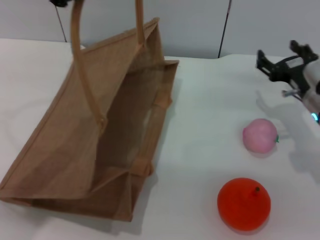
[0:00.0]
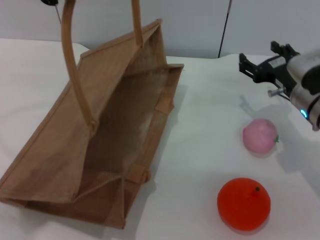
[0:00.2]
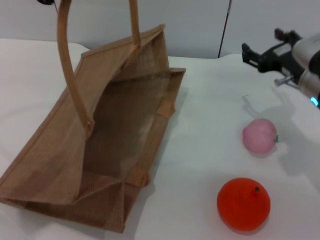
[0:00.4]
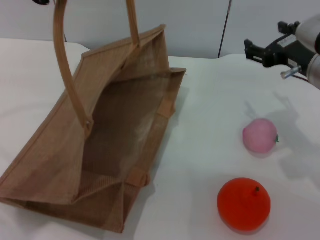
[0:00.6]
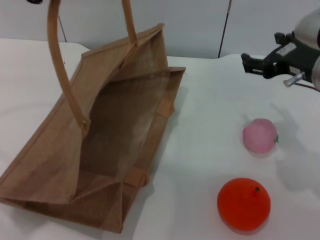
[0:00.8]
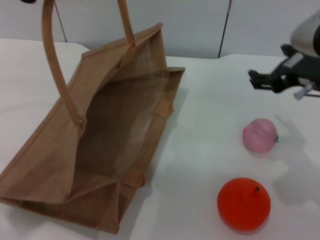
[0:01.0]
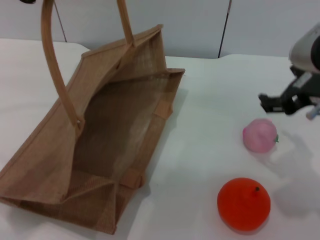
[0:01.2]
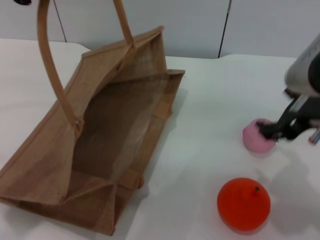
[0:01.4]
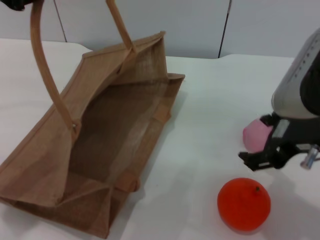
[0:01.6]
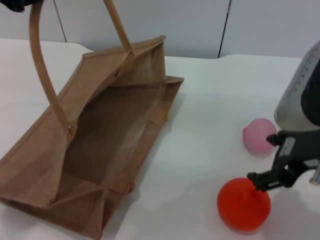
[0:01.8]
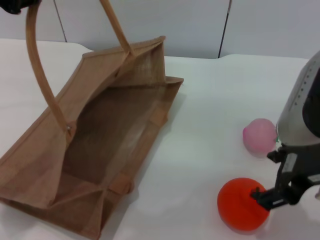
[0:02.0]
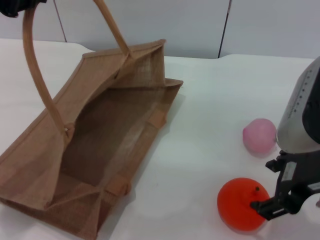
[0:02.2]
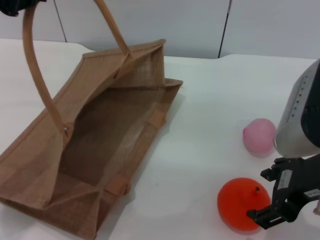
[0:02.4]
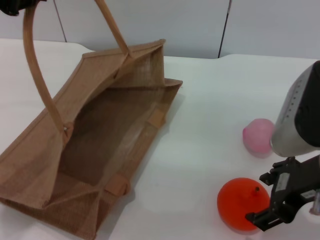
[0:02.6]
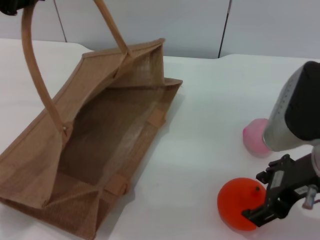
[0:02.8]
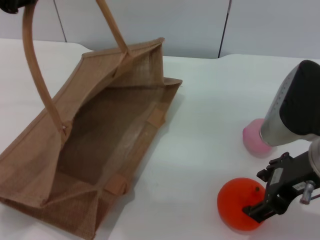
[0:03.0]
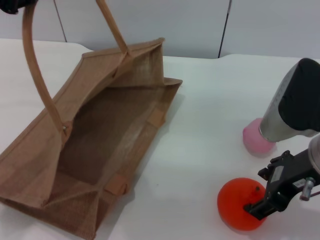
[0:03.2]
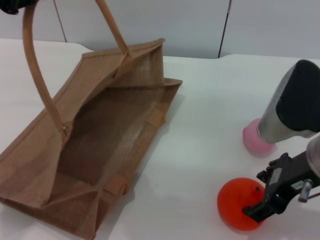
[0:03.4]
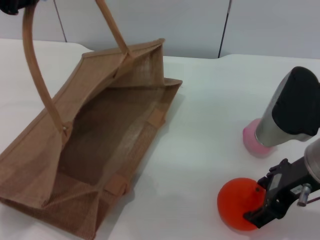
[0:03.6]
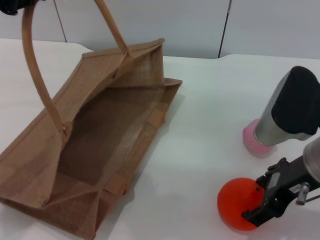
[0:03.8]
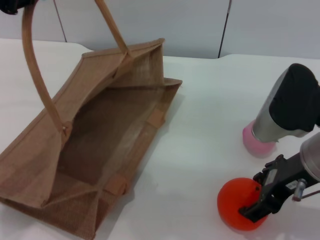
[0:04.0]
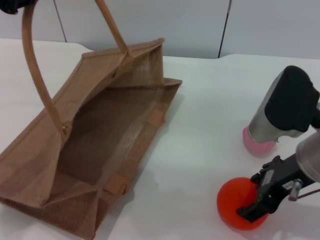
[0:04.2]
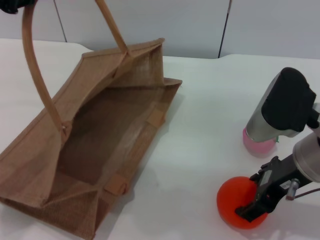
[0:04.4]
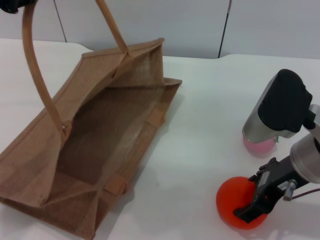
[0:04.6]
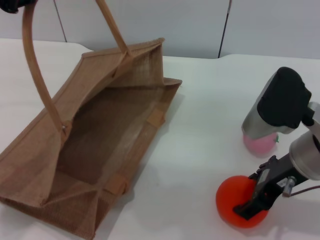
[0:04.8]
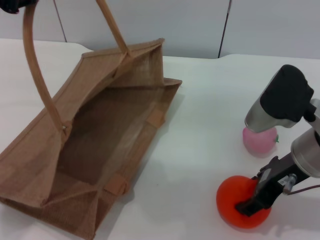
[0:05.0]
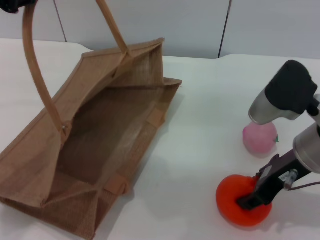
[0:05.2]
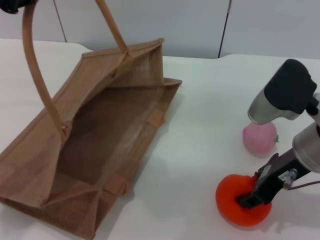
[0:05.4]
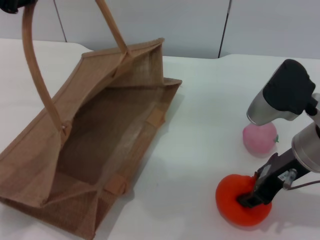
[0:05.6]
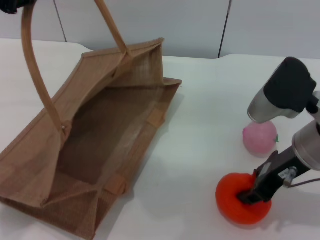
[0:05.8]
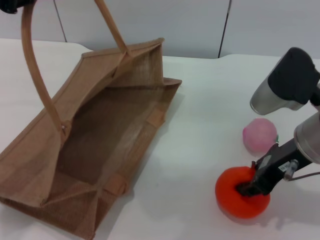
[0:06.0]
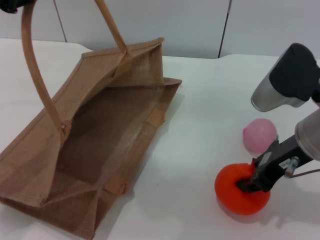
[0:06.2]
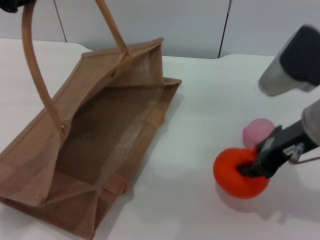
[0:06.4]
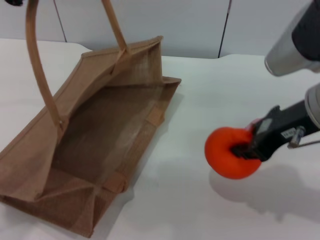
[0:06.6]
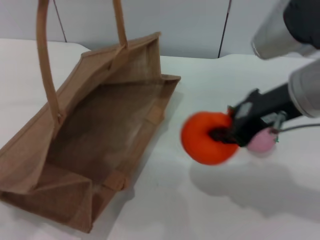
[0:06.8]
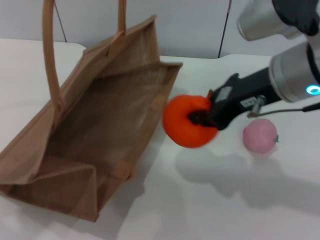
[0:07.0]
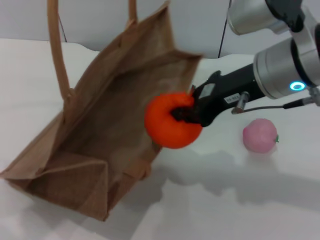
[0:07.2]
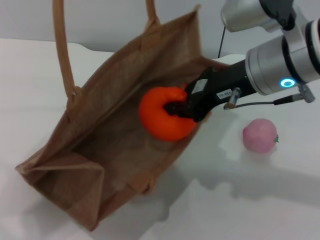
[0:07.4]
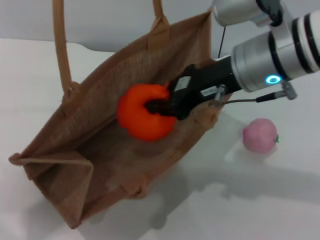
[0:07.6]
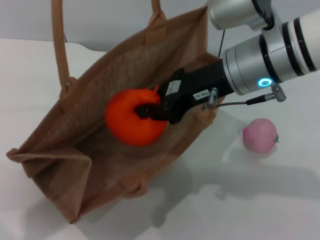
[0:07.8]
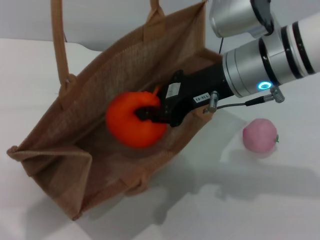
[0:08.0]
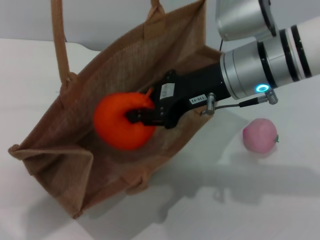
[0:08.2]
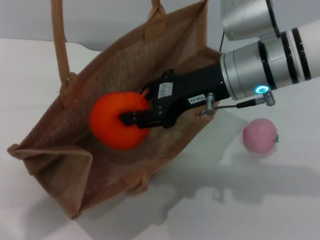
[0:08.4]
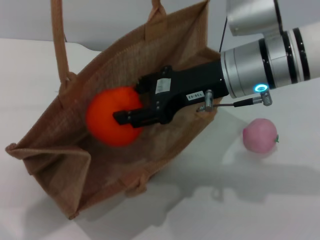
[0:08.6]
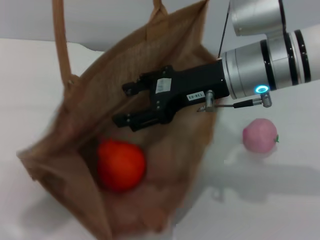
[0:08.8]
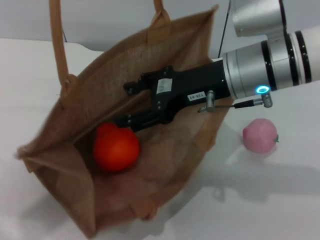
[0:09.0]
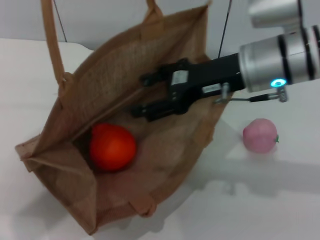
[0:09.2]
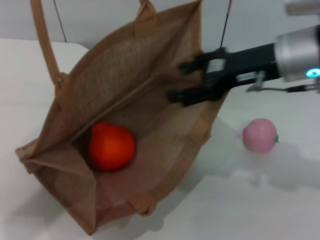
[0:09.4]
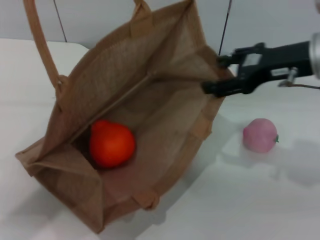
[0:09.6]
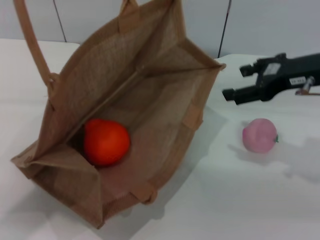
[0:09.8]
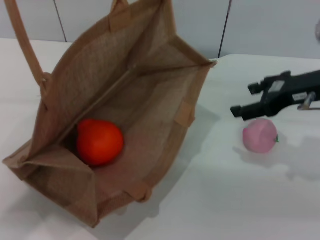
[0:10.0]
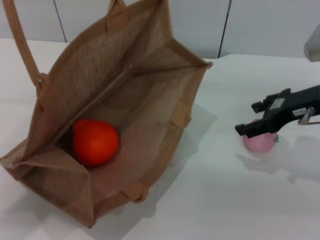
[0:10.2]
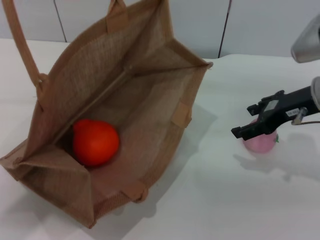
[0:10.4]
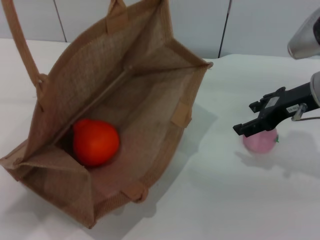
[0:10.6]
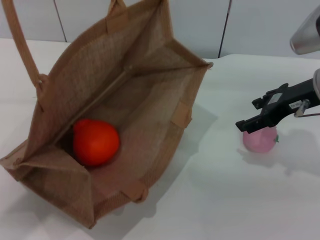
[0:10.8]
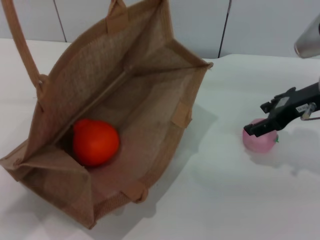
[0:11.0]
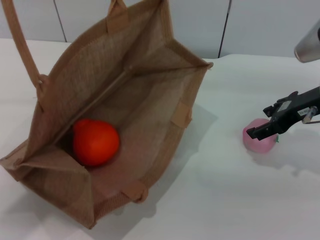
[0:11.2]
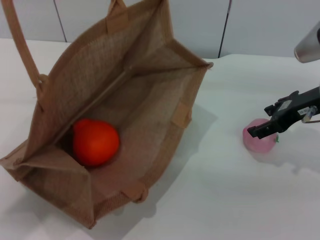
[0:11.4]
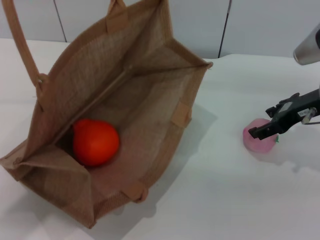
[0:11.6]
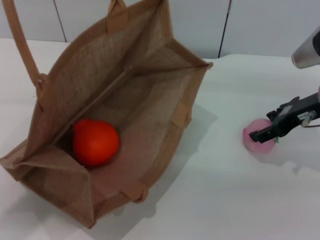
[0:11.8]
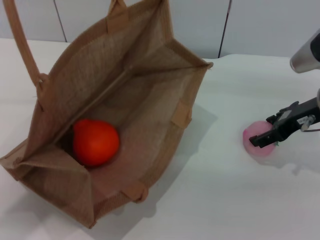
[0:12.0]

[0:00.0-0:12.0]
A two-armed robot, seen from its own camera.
Task of the whole recording: pick up the orange and peach from the table and place it in the brown handbag.
Step, 0:00.2 to 0:06.6: Pick up the orange with the right gripper.
Step, 0:06.8 to 0:09.2: Place the orange into the woven bag with the right gripper.
0:00.0 to 0:01.6: The right gripper shifts about 20 cm upward and backward.
0:03.0 to 0:04.4: The grippers move only a little.
0:04.4 to 0:06.0: The right gripper closes up.
0:06.0 to 0:07.6: The right gripper goes some 10 cm to the left and upward, and closes up, while the left gripper moves roughly 5 cm.
0:07.6 to 0:09.0: The right gripper opens.
0:09.0 to 0:10.4: The left gripper shifts by approximately 5 cm; the right gripper heads to the right, covering some 10 cm.
0:10.4 to 0:12.0: The grippers move only a little.

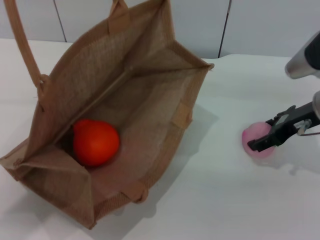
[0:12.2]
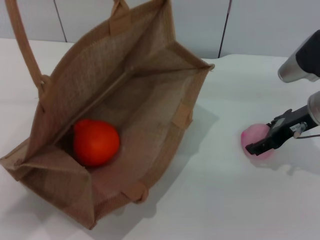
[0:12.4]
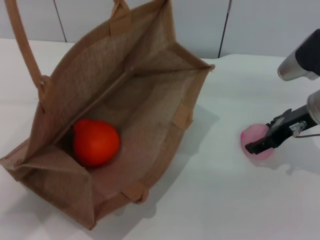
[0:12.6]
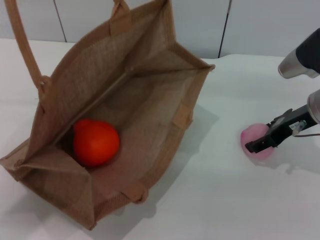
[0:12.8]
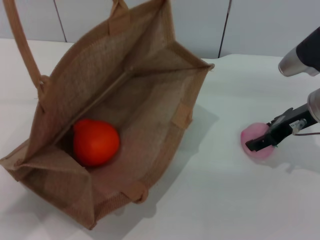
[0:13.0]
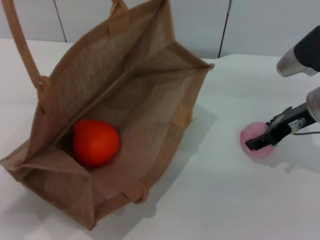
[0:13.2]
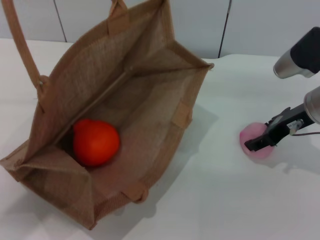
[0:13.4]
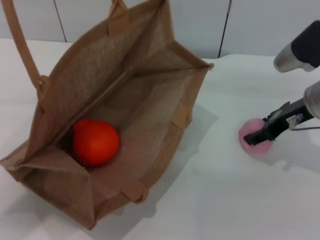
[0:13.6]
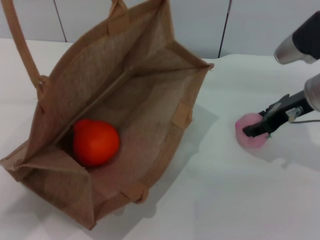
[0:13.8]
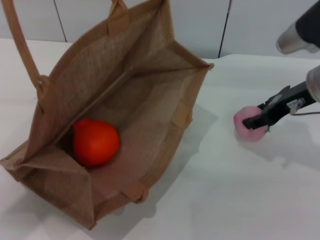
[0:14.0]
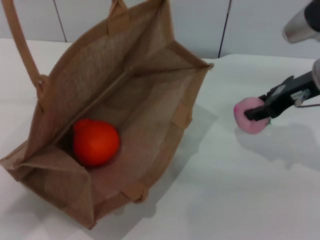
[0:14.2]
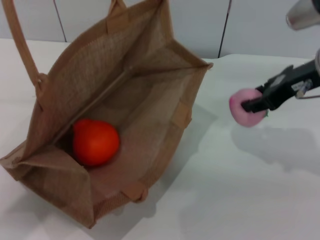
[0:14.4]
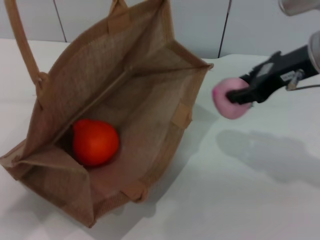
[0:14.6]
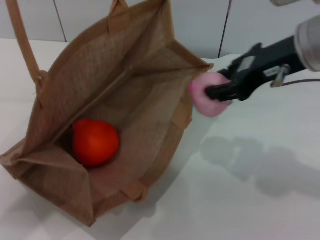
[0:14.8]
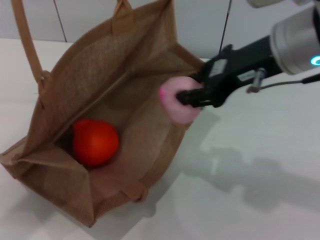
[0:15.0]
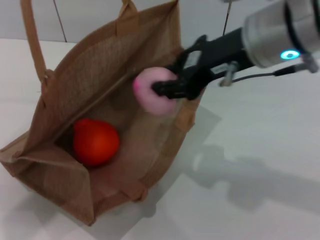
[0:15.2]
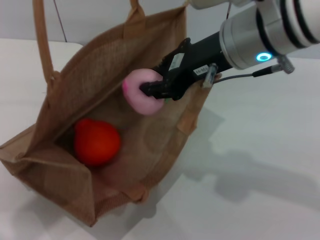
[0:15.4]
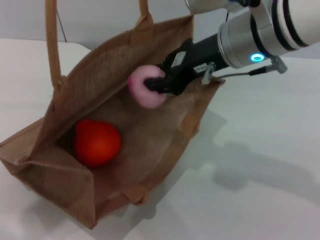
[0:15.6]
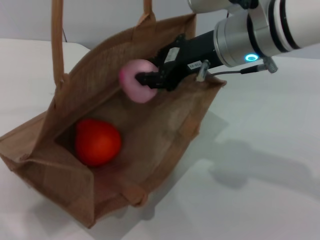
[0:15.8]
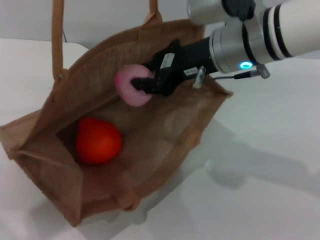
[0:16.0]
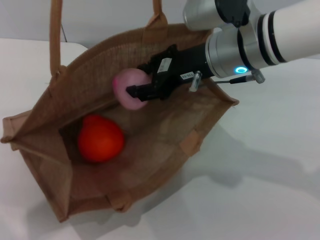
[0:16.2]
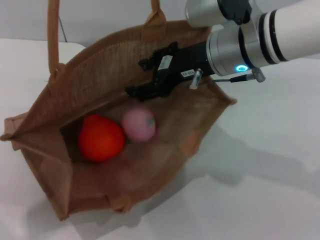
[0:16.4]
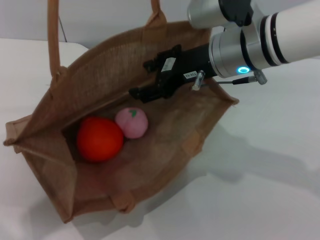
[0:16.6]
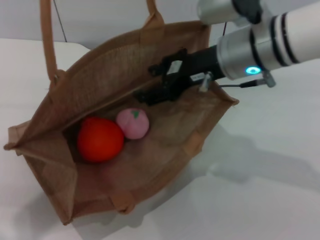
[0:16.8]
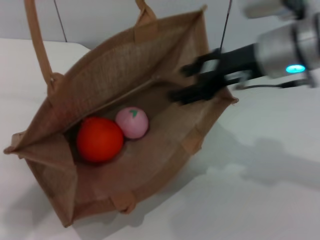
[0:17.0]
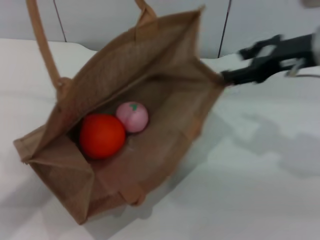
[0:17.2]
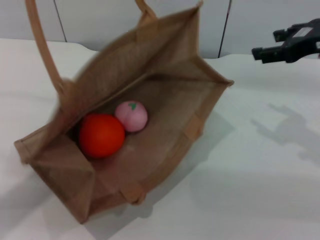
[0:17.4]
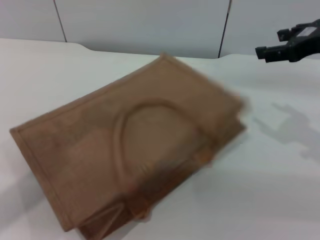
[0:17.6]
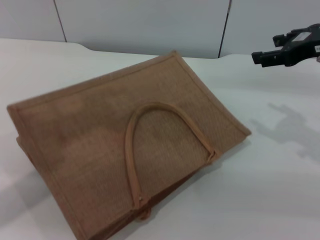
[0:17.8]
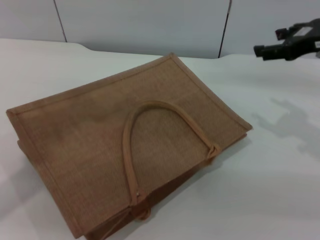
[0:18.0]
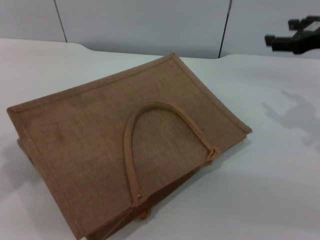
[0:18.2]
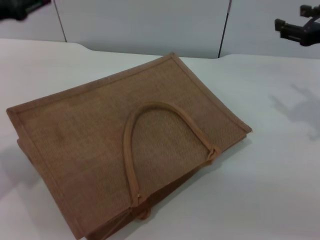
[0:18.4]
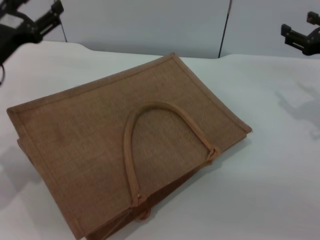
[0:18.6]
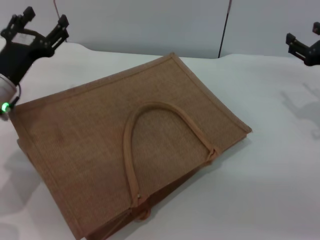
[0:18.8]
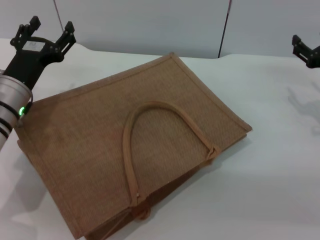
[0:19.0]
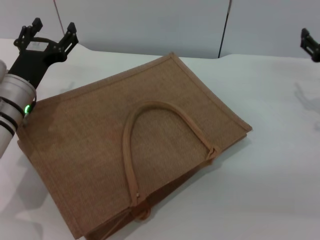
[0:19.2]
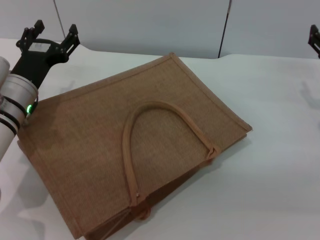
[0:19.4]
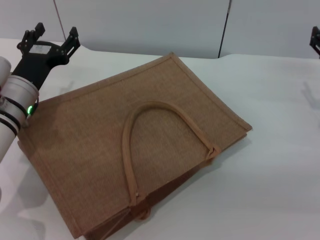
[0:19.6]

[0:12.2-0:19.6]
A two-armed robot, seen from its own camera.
Task of the whole recording: pick up the orange and peach from the table and place it in the brown handbag.
Step, 0:12.2 to 0:14.2: Pick up the peach with the right gripper.
Step, 0:14.4 to 0:16.6: Place the peach into the woven bag with the right gripper.
Step, 0:16.8 to 0:17.8: Lower the woven bag with the left gripper to close it.
0:12.2 to 0:13.6: The grippers make only small movements.
0:13.6 to 0:15.2: The right gripper travels upward, to the left and backward by some 20 cm, and closes.
0:15.2 to 0:16.6: The right gripper heads downward, covering roughly 5 cm, and opens up.
0:16.6 to 0:18.2: The right gripper travels to the right by approximately 20 cm, while the left gripper shifts roughly 15 cm downward and to the left, and opens up.
0:18.2 to 0:19.6: The right gripper goes about 10 cm downward, while the left gripper travels downward by some 20 cm.

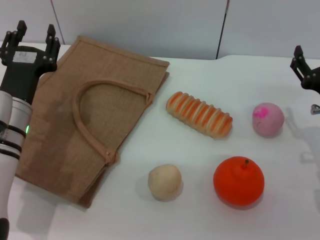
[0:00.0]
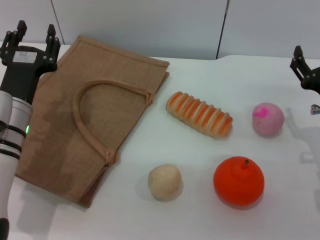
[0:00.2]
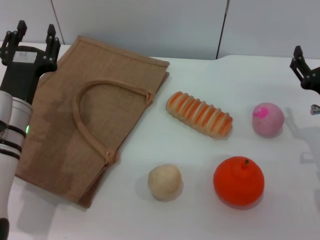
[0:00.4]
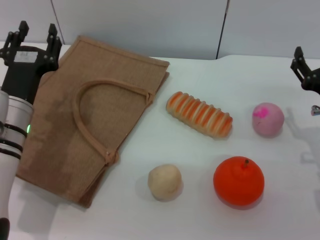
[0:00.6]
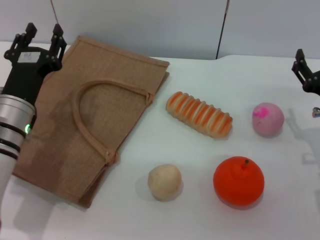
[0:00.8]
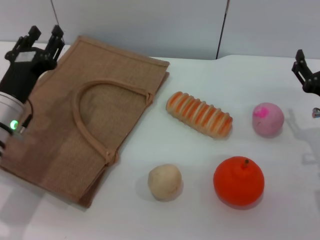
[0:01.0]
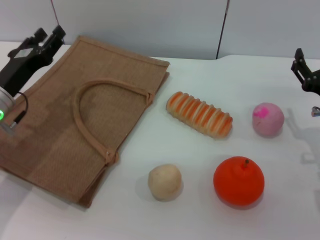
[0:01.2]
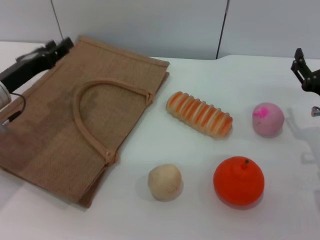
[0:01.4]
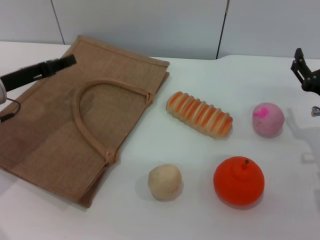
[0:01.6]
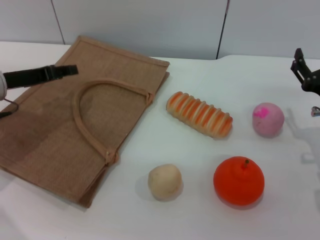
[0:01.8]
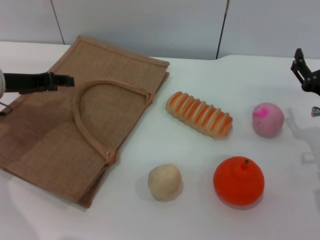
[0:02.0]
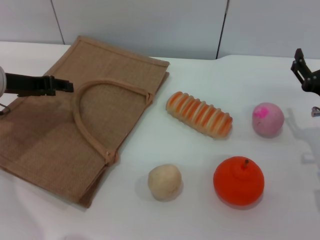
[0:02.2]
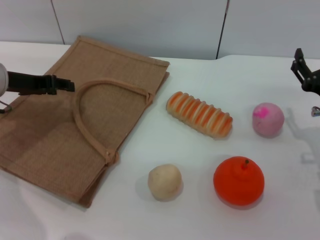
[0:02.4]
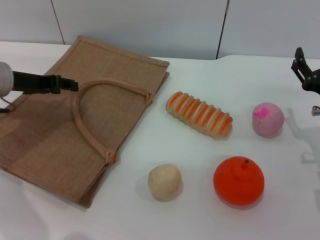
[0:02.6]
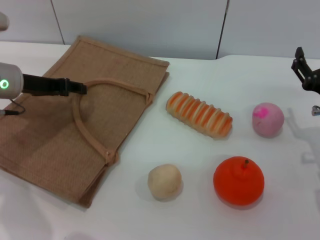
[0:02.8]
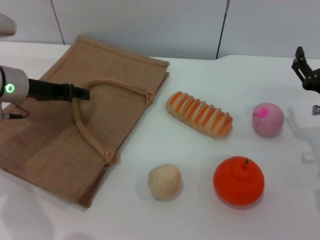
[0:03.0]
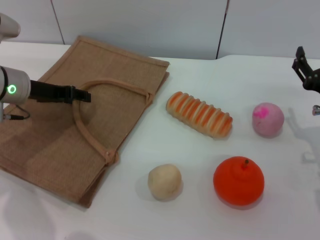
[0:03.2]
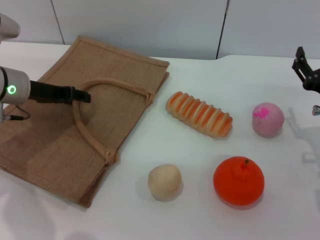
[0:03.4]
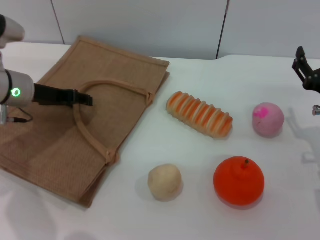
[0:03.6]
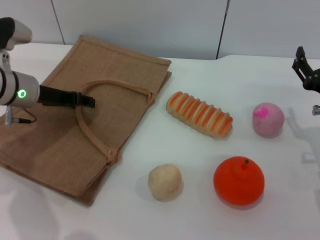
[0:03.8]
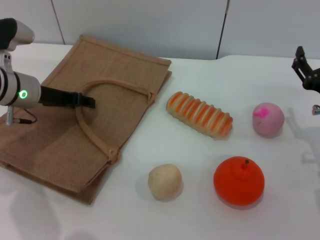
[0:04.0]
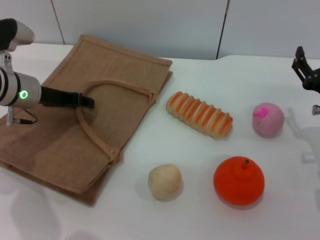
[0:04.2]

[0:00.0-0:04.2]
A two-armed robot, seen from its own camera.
Task of the whole recording: pick up the bread from the table and place it in the brown handbag.
0:00.0 to 0:01.4: The left gripper goes roughly 5 cm to the left.
0:01.4 to 0:02.8: The left gripper shifts by approximately 5 cm.
0:02.8 to 0:04.2: The grippers move only a little.
